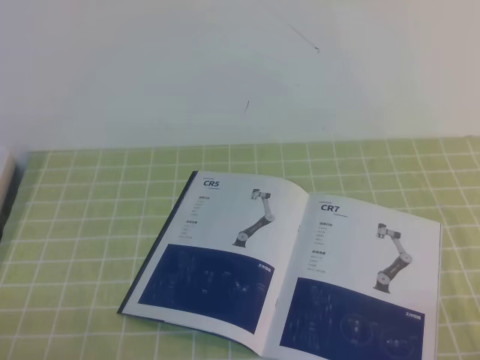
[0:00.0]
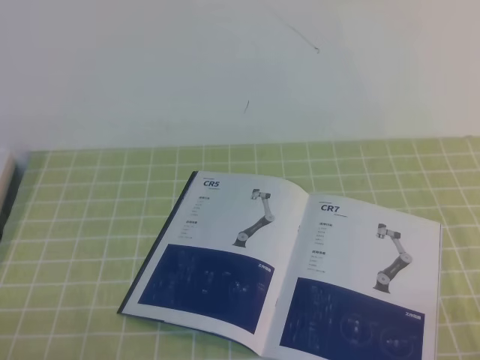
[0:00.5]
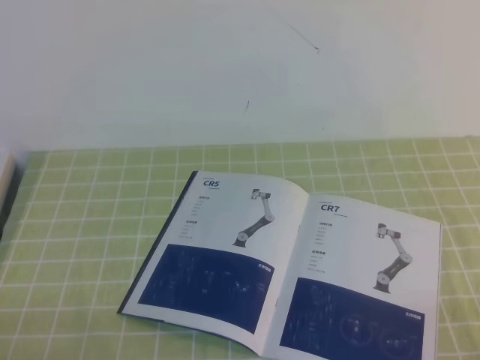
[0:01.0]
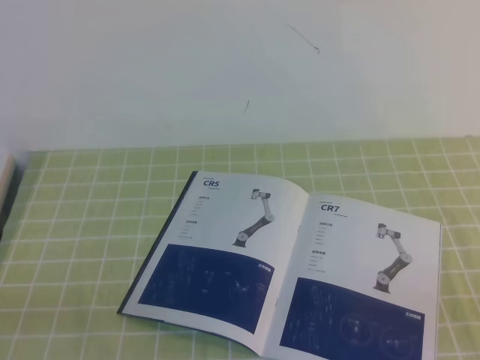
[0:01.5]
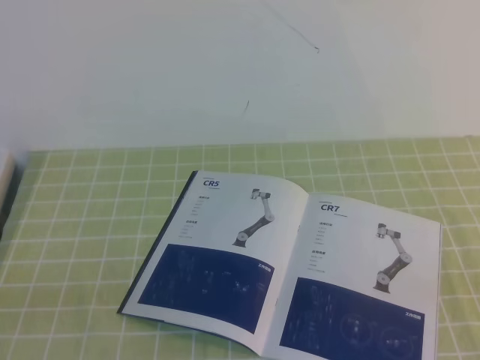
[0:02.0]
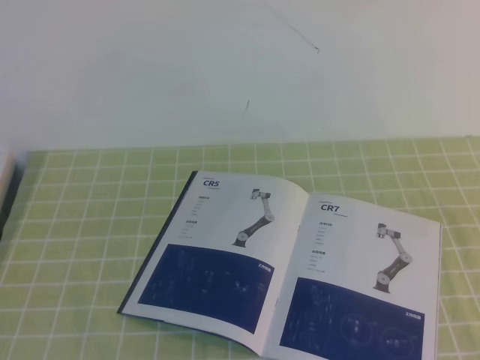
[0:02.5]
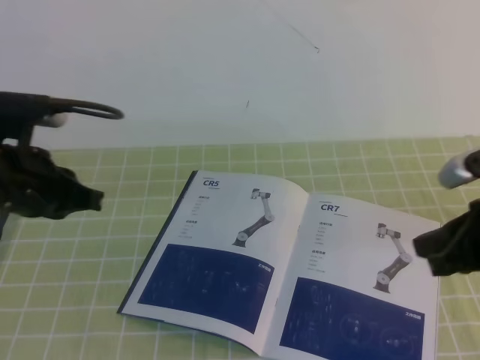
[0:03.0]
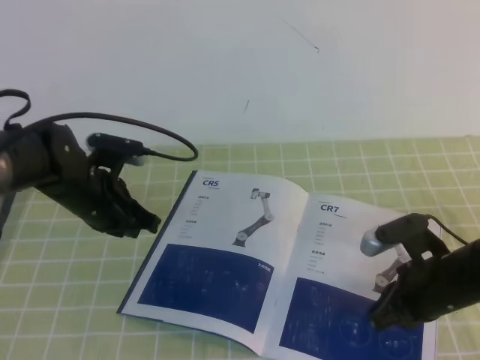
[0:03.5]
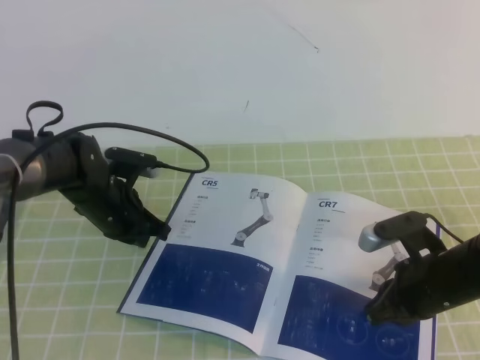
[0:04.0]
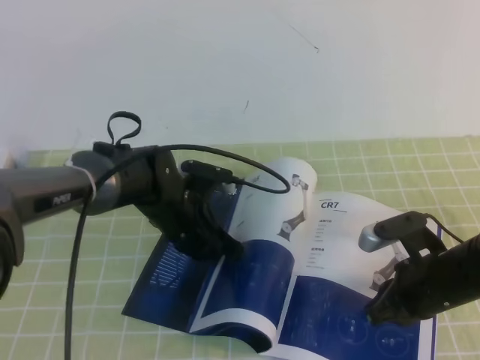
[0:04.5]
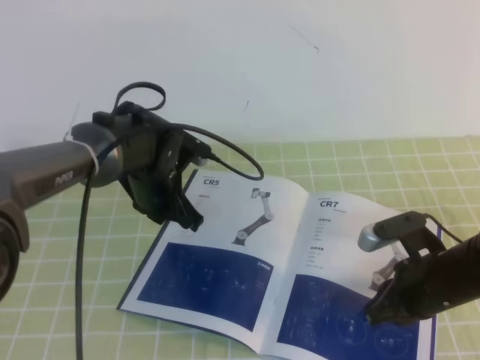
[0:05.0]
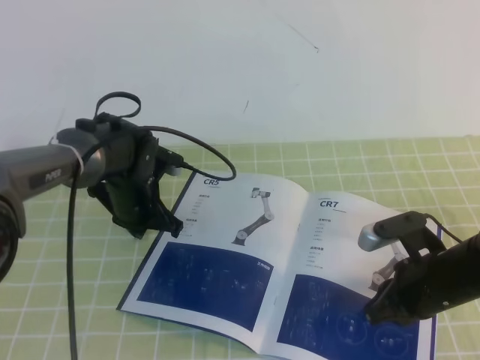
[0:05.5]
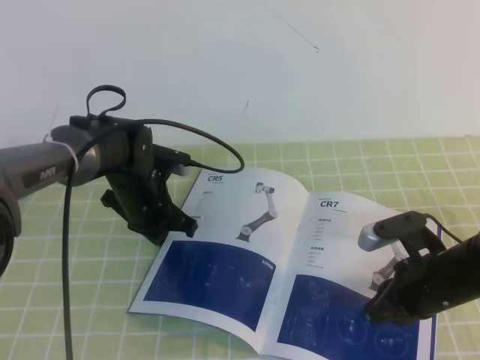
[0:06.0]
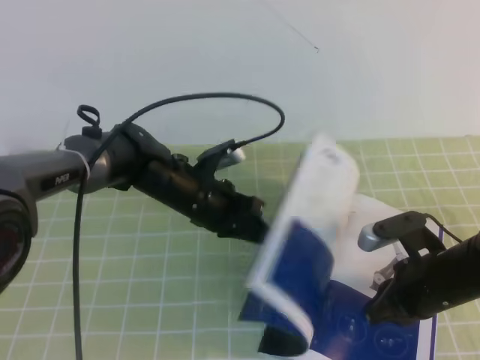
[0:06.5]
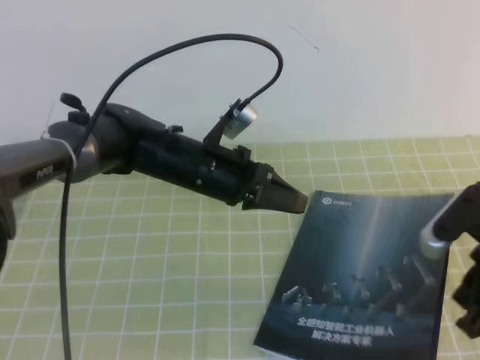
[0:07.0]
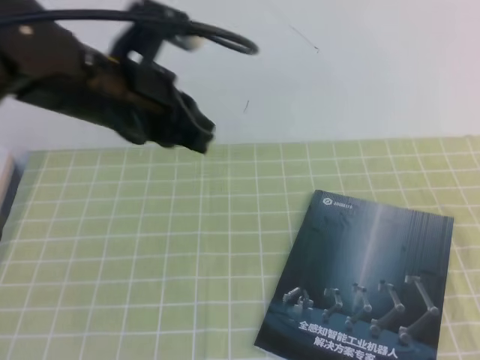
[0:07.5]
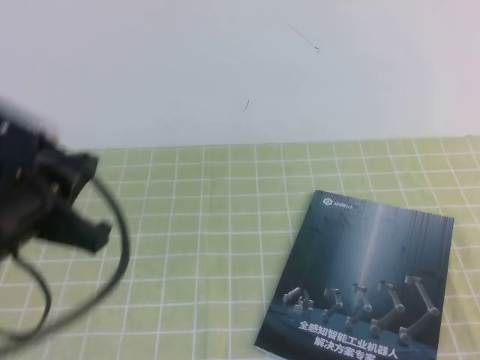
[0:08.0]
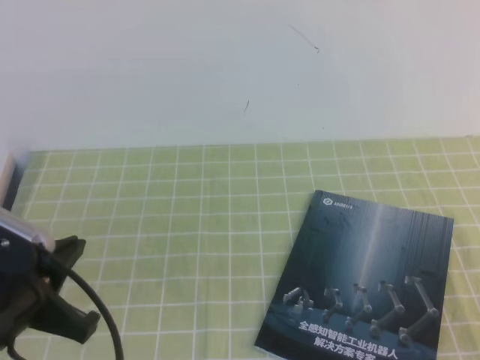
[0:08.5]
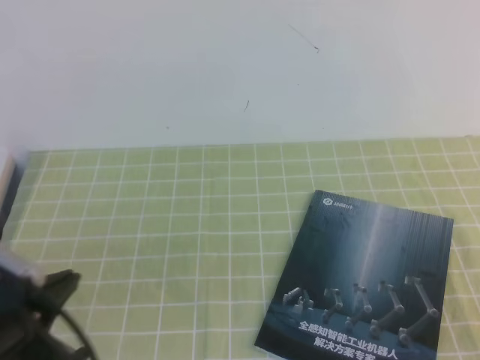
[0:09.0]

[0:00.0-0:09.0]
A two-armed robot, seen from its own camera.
Task of the whole recording: on the green tablecloth, hold the book with one hand and close it with the other.
0:02.0 to 0:04.5: The left gripper moves forward and to the right, some 40 cm, while the right gripper is displaced forward, downward and to the left by approximately 30 cm.
0:04.5 to 0:07.0: The two grippers go some 10 cm upward.
0:07.0 to 0:09.0: The right gripper is displaced backward and to the right by roughly 20 cm, while the left gripper moves backward and to the left, roughly 30 cm.
